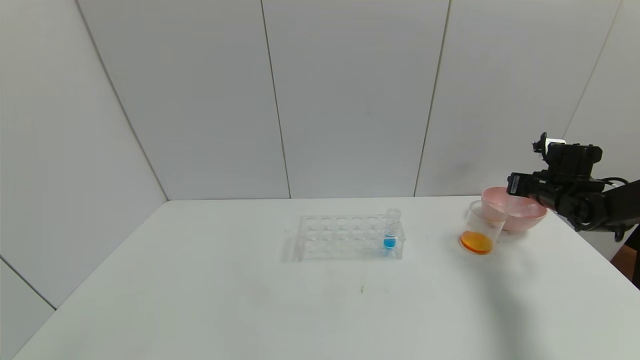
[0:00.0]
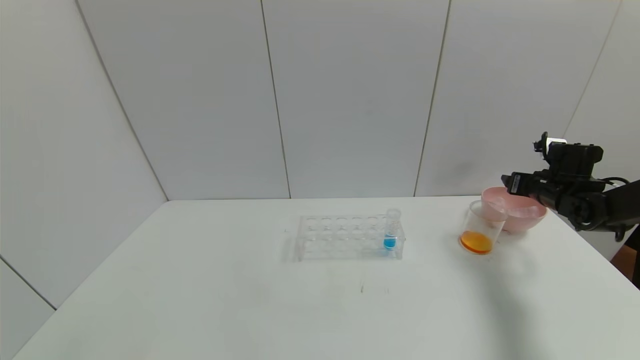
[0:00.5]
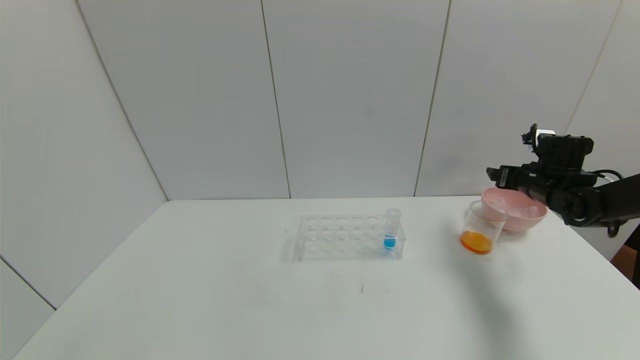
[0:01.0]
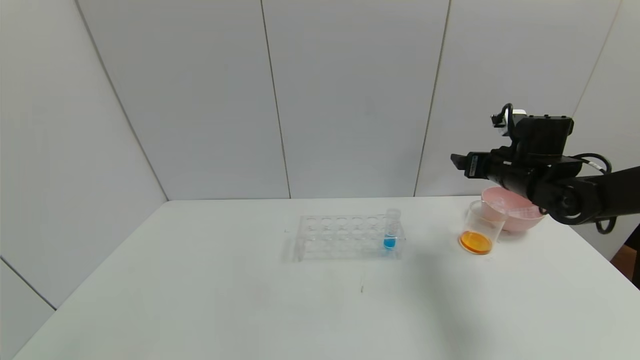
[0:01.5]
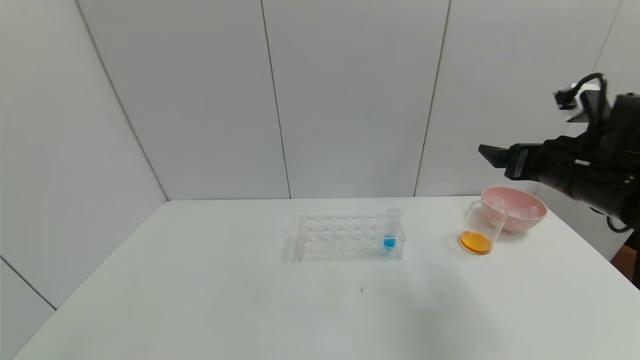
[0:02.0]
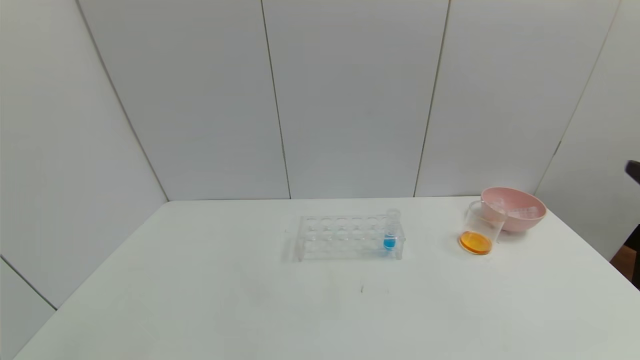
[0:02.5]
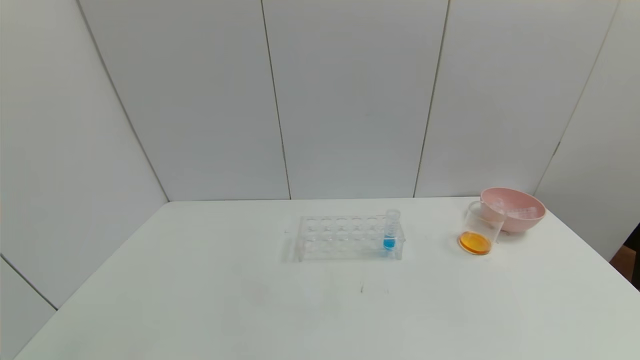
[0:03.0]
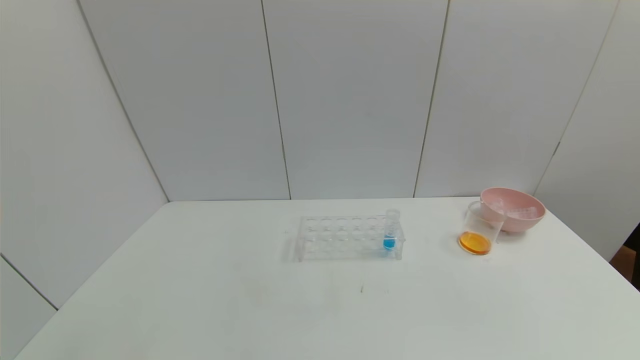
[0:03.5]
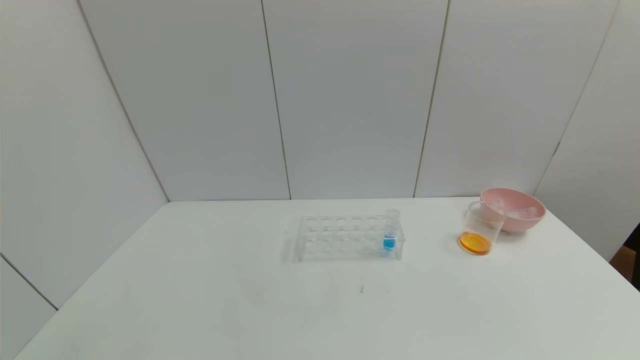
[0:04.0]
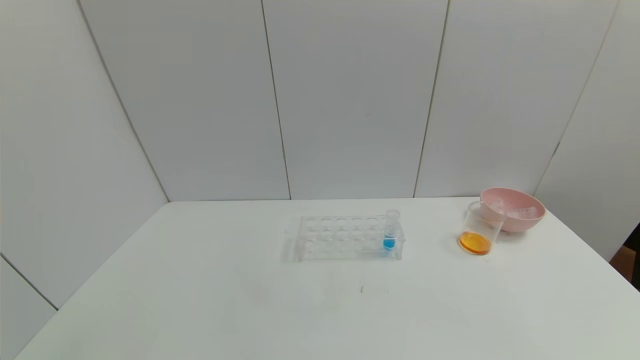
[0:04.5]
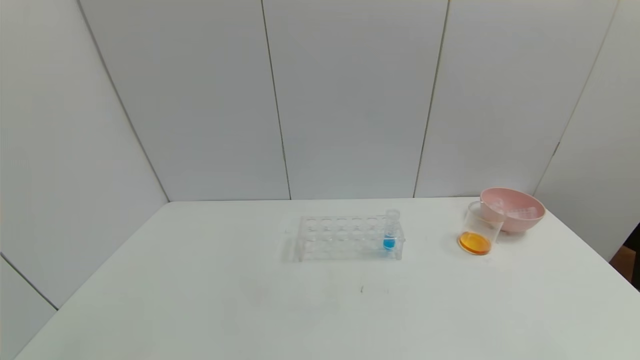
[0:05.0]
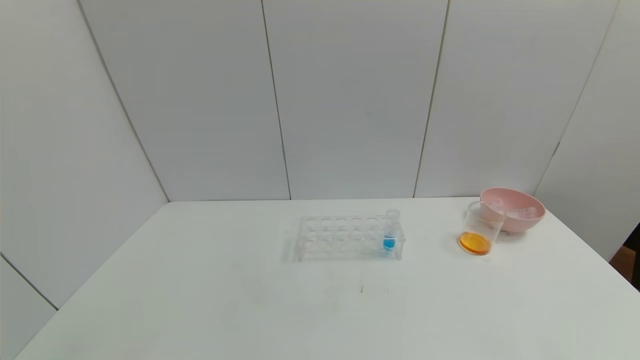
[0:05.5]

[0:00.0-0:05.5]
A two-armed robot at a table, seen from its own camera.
Task of the whole recording: pick up the test tube with yellow pigment and the test tube with red pigment by grippers and pour them into the beaker.
0:00.0 to 0:02.0: The right gripper heads backward, to the left and upward, covering approximately 20 cm, and opens up.
0:02.0 to 0:03.5: The right gripper moves backward, roughly 35 cm.
